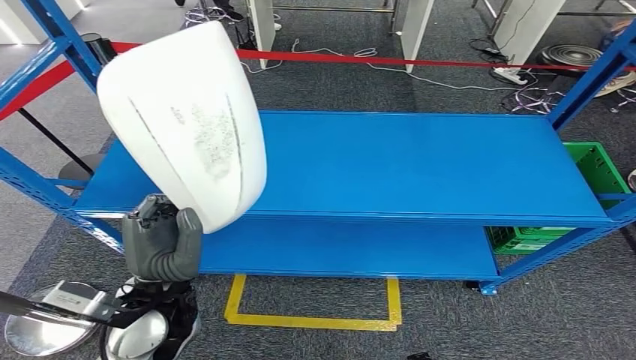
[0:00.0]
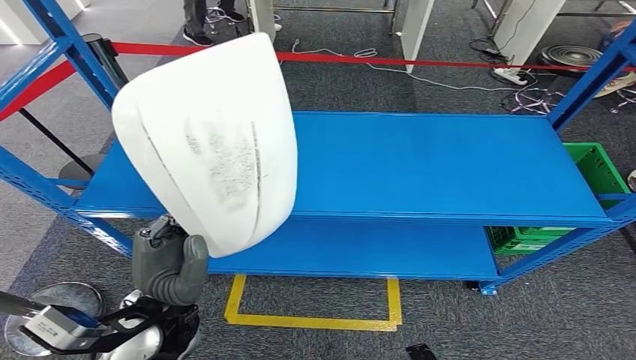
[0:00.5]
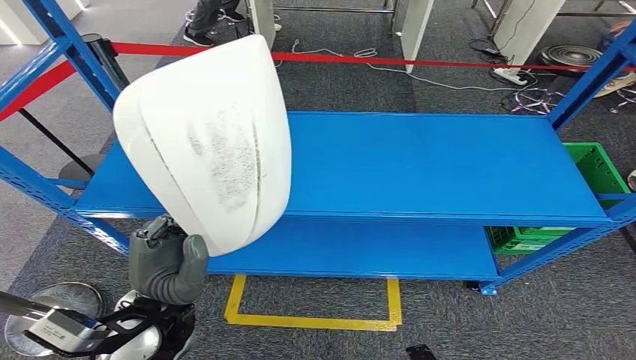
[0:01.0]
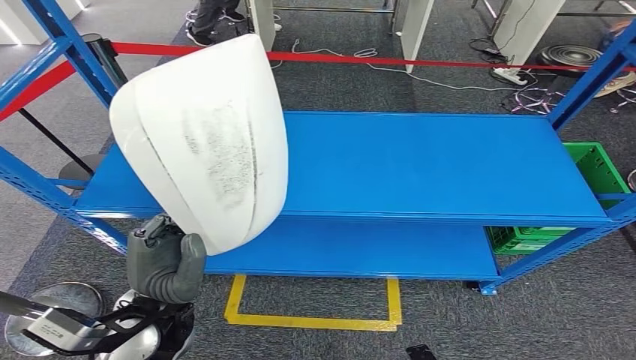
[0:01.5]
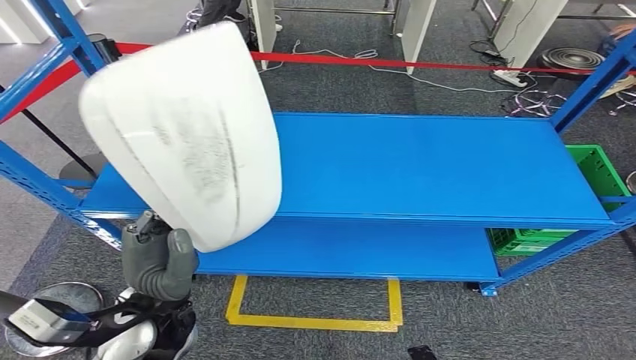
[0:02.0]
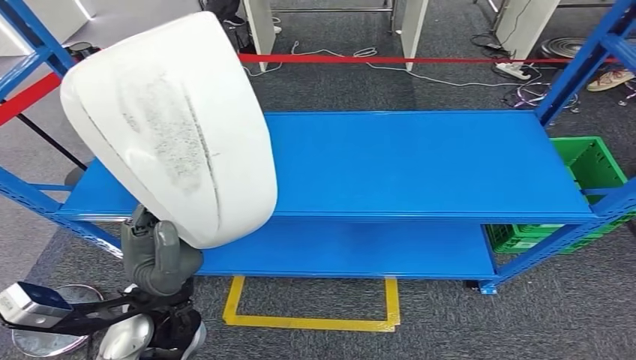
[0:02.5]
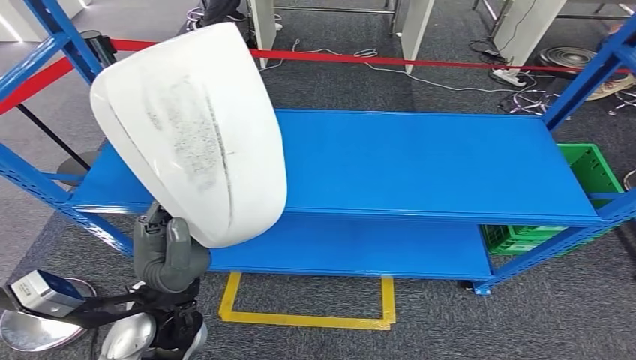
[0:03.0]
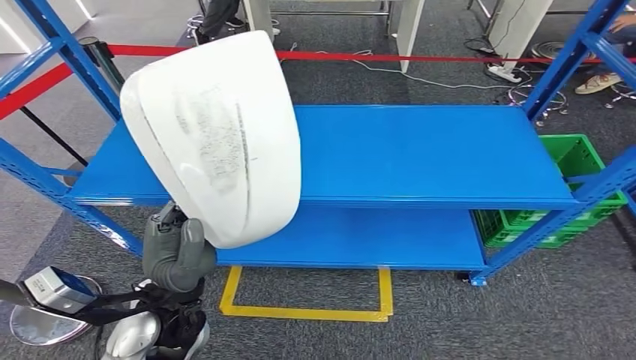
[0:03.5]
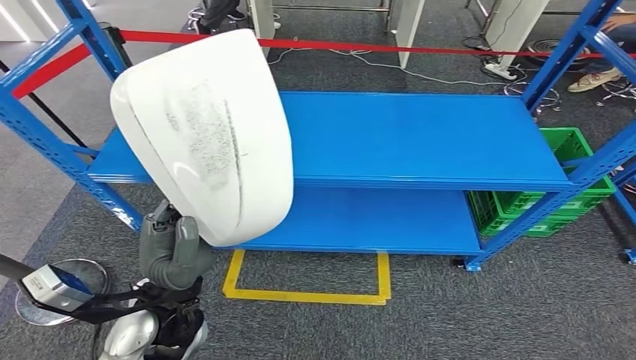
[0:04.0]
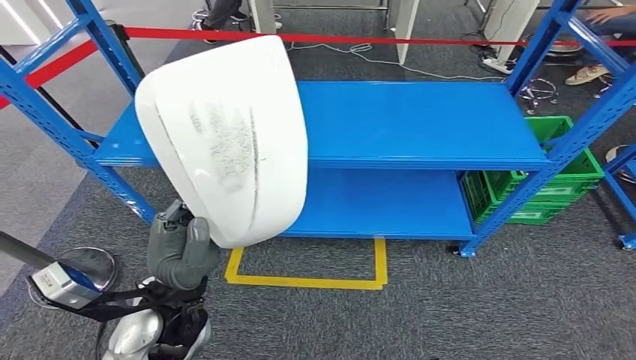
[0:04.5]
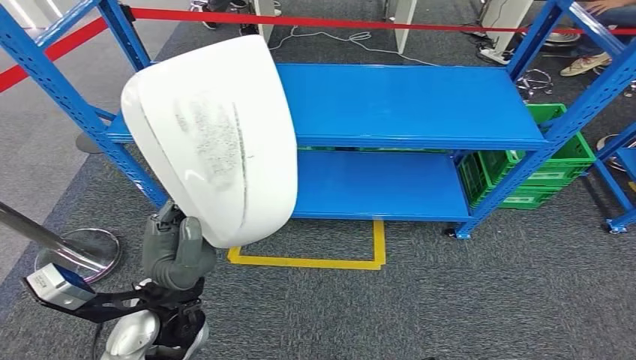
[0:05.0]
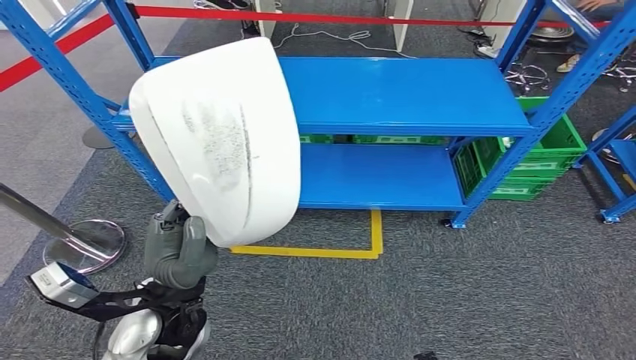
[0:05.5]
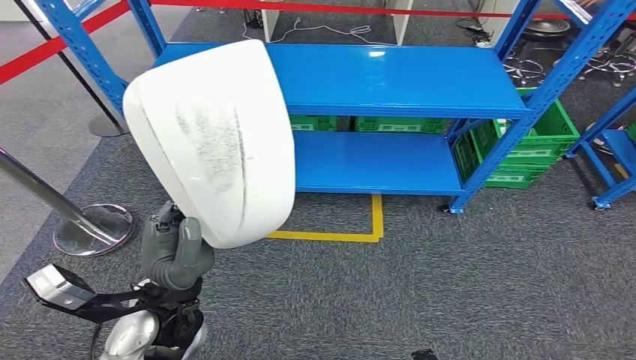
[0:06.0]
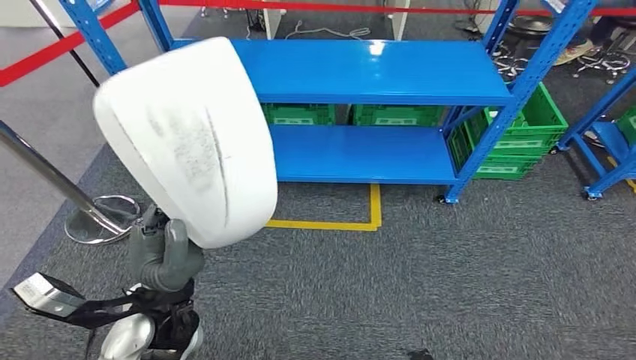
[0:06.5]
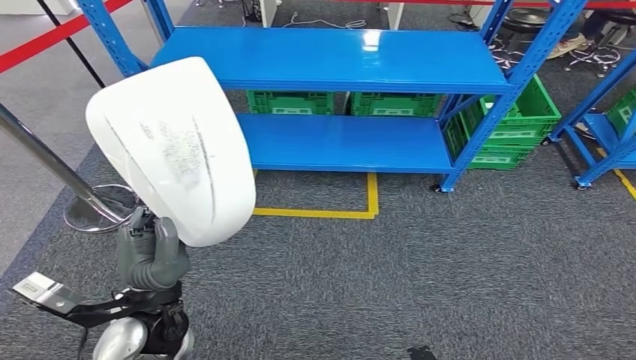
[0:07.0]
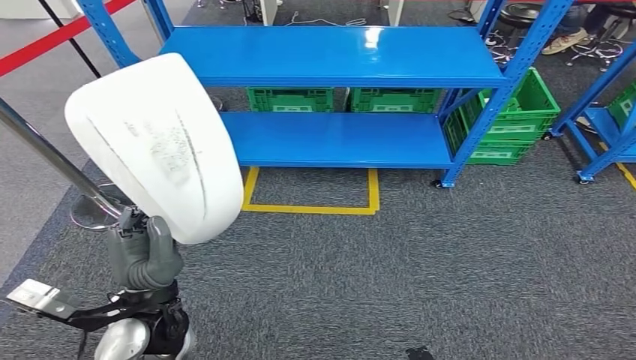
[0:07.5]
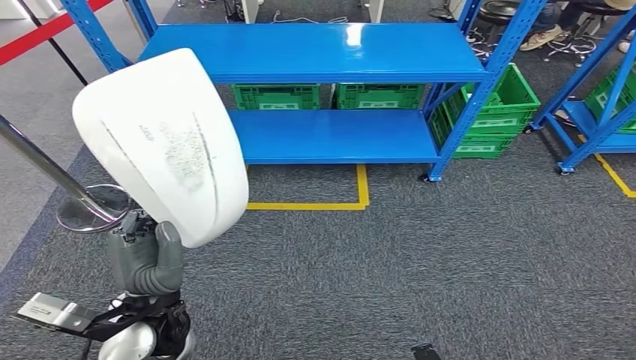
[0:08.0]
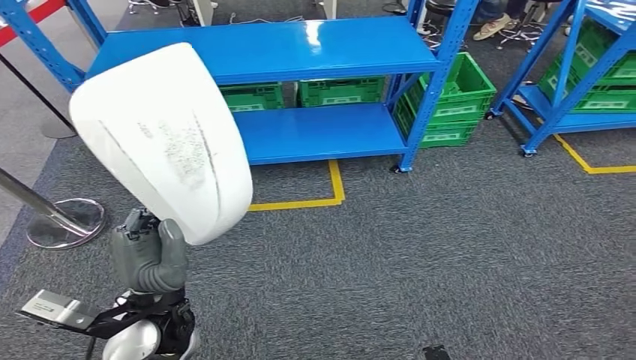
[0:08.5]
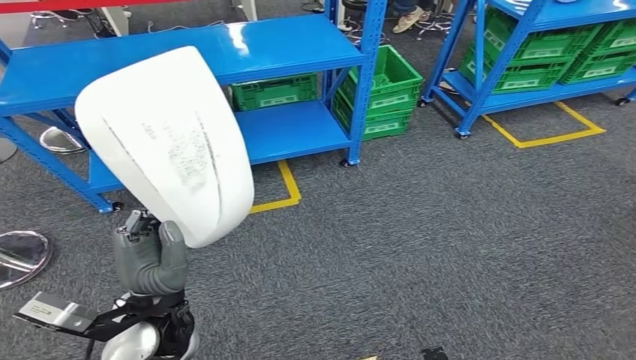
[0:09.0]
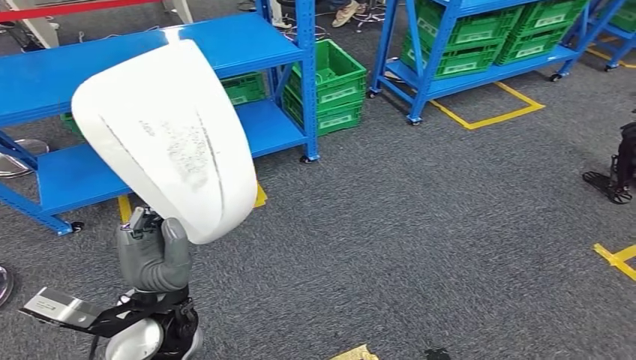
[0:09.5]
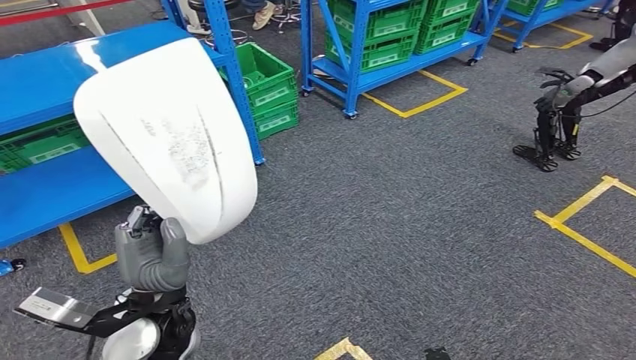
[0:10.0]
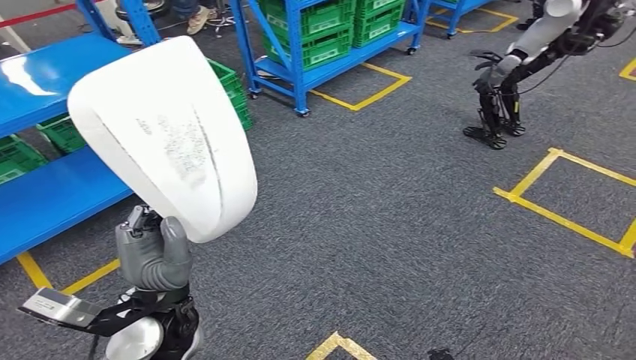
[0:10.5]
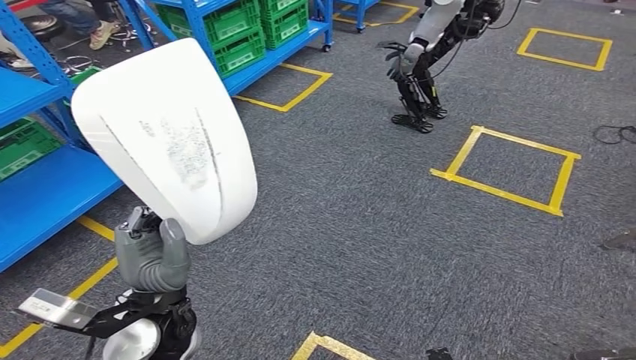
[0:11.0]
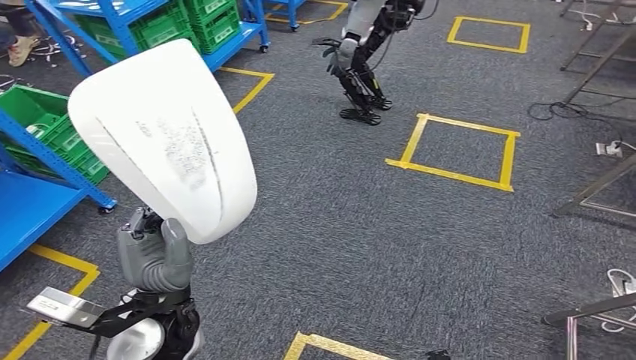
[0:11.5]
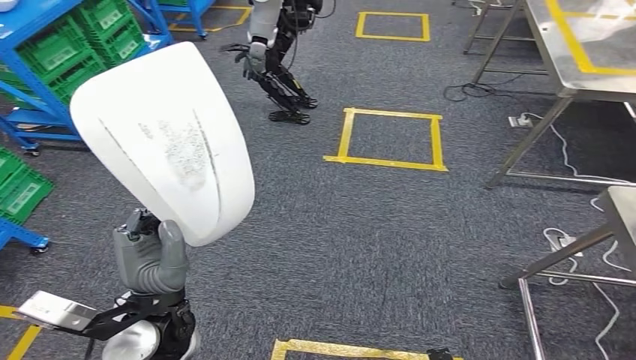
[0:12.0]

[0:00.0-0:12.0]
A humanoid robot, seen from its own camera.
0:00.0 to 0:02.0: The hands move only a little.

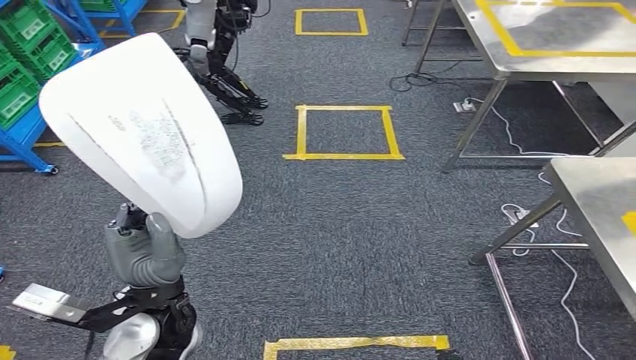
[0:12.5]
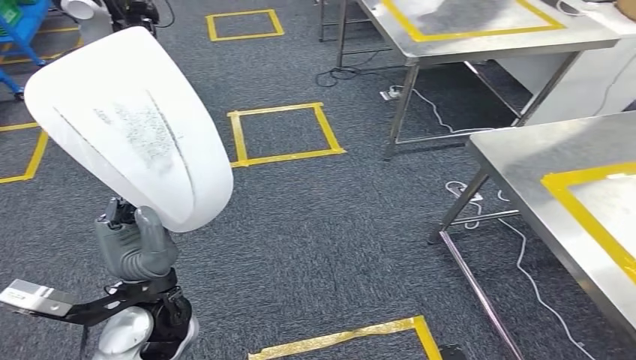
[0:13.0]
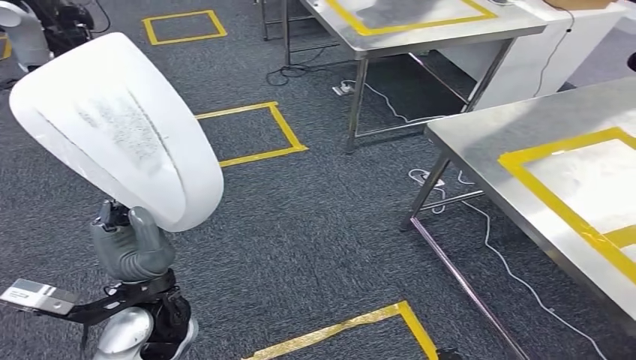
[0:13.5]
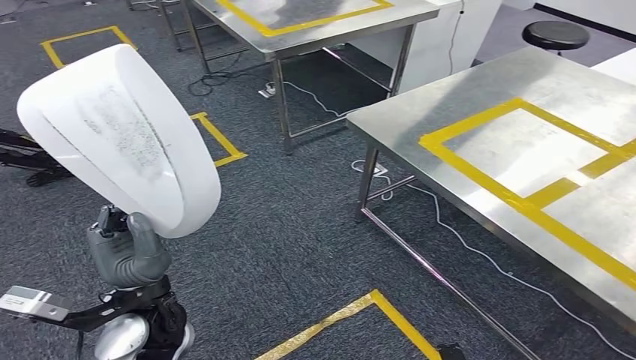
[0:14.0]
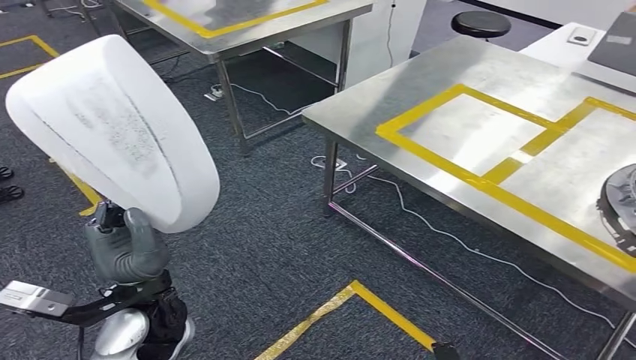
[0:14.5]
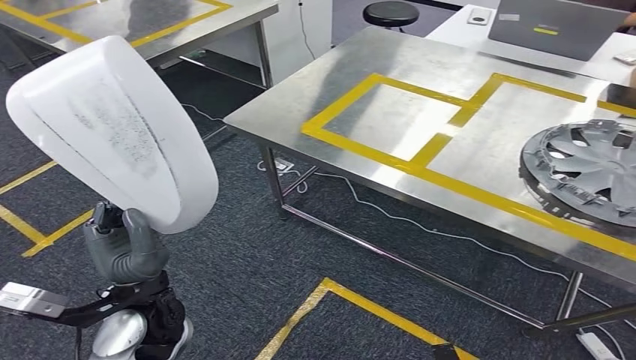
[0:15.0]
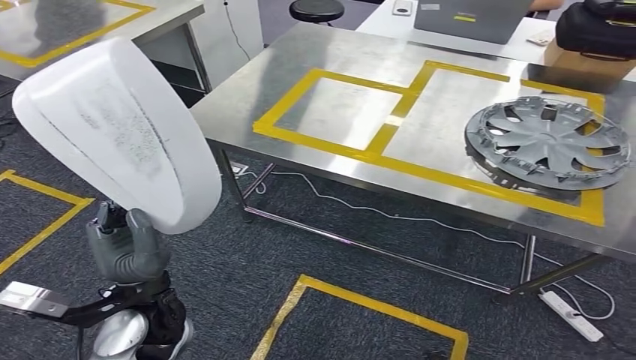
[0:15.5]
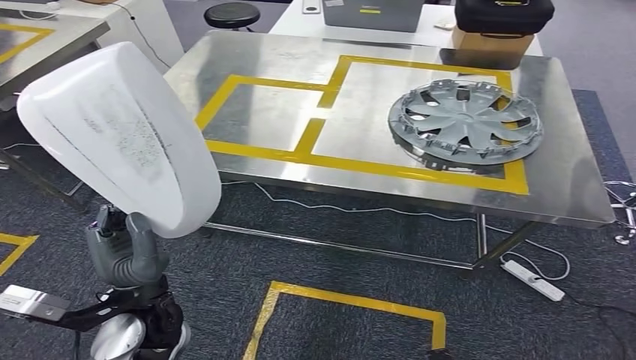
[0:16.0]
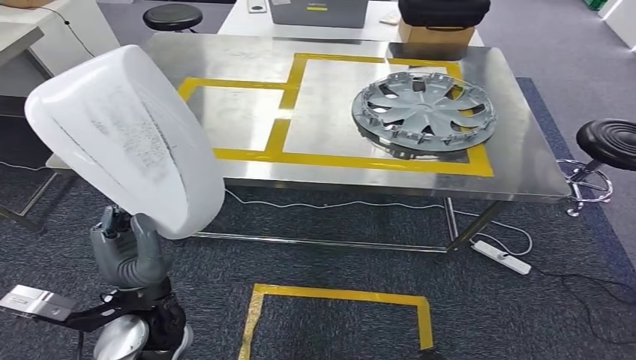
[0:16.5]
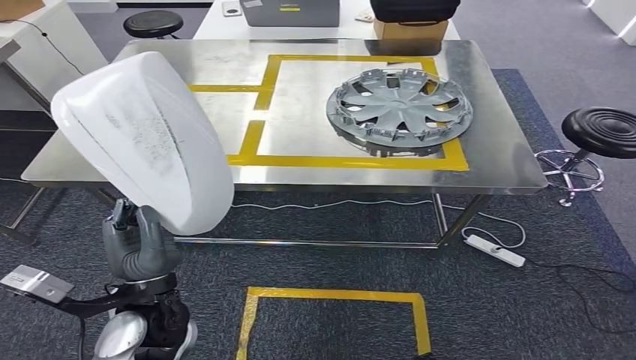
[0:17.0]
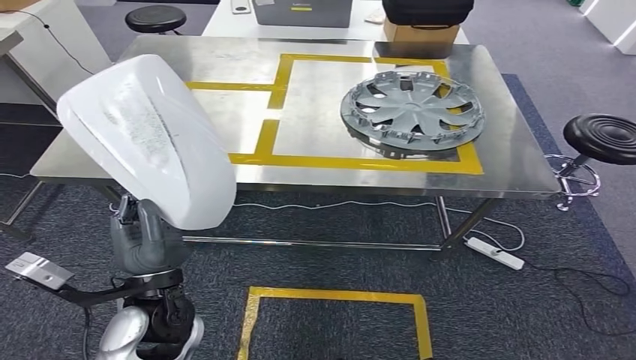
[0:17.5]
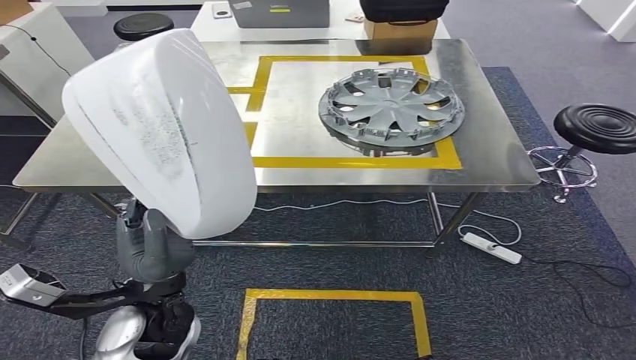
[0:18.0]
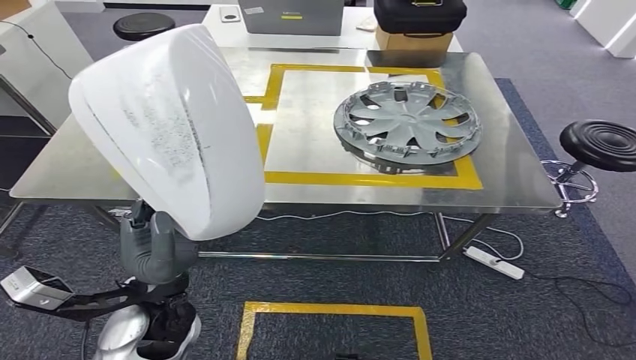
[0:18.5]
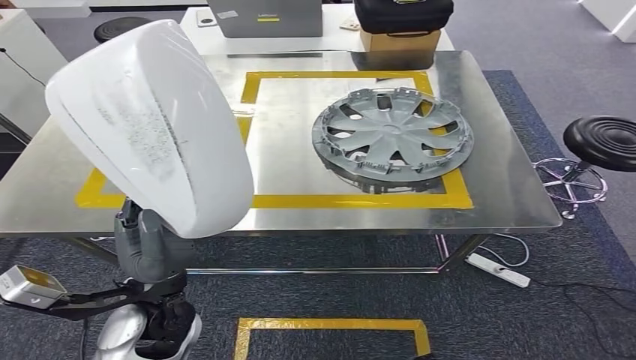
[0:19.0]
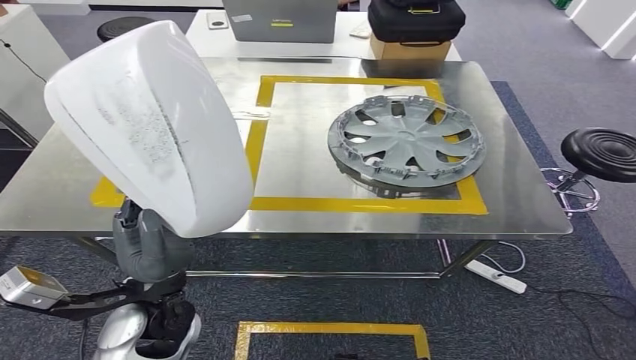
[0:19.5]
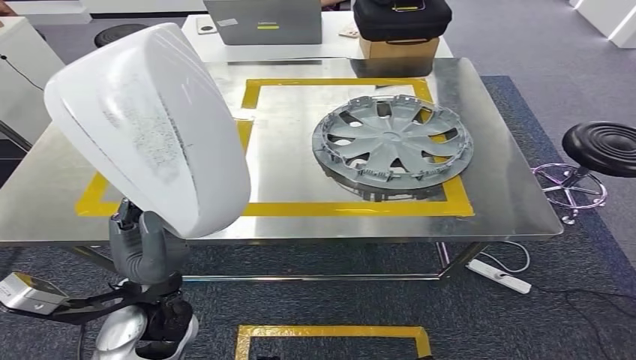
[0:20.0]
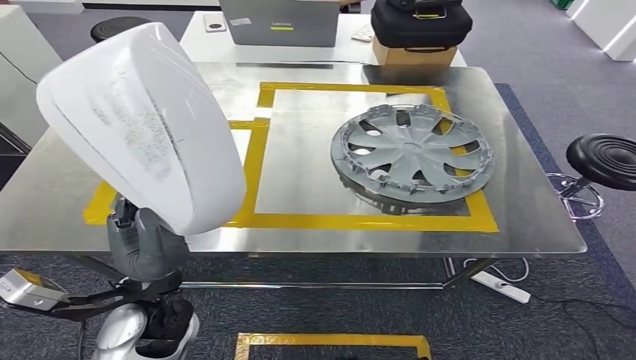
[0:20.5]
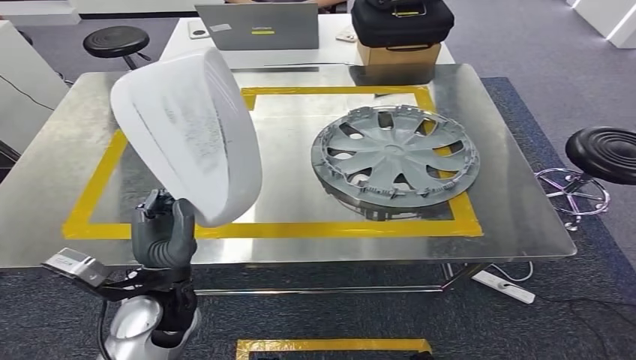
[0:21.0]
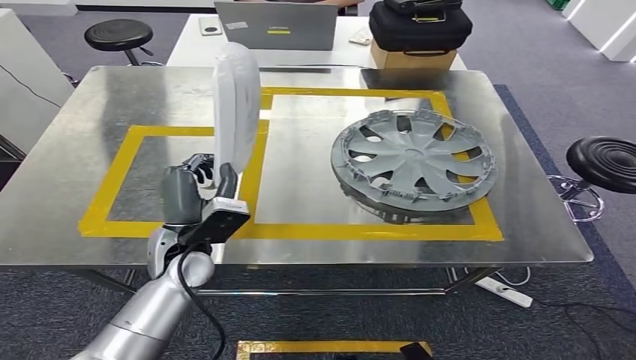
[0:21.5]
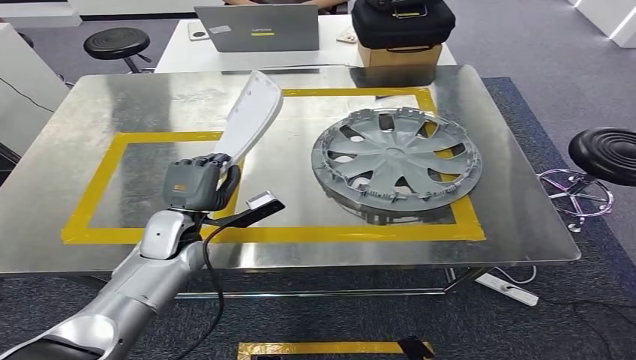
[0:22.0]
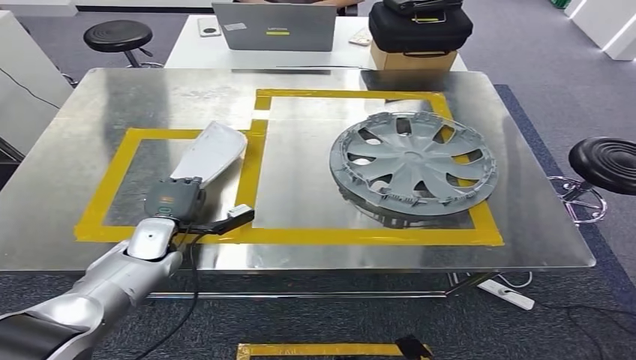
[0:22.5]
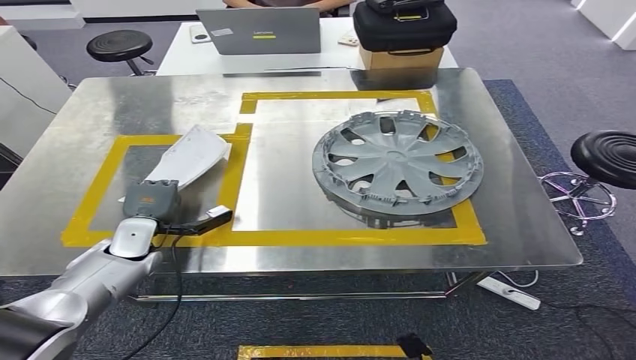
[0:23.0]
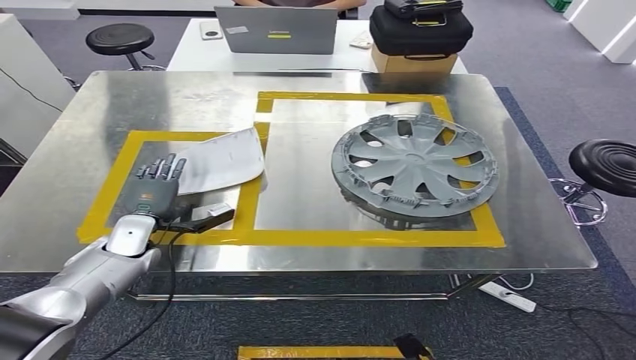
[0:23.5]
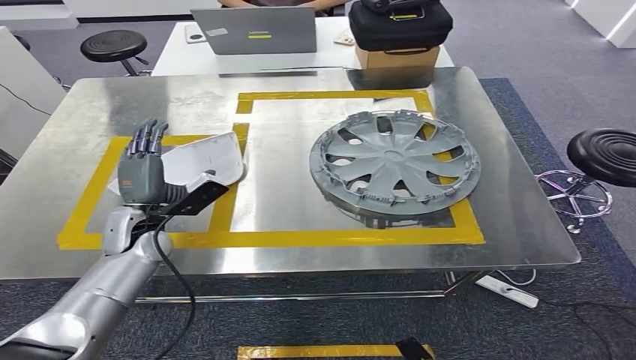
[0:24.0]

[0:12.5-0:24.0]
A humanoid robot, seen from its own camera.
Step, 0:12.5 to 0:21.0: Move the small component to the workbench.
